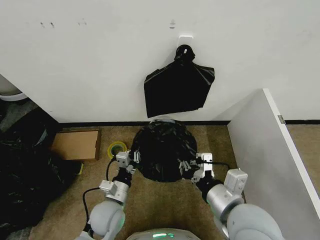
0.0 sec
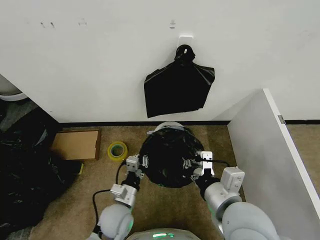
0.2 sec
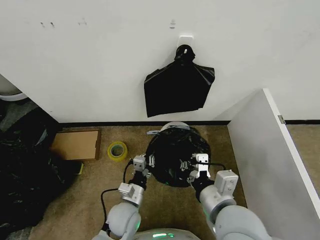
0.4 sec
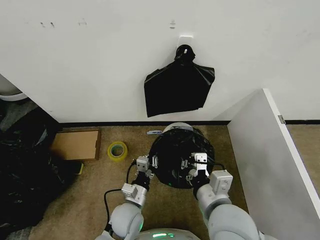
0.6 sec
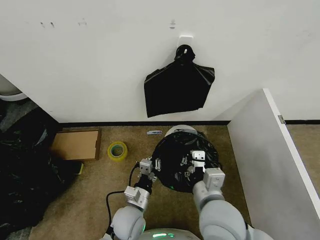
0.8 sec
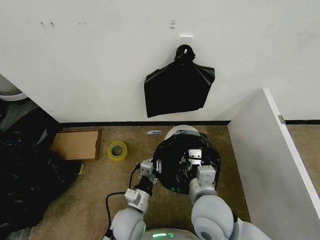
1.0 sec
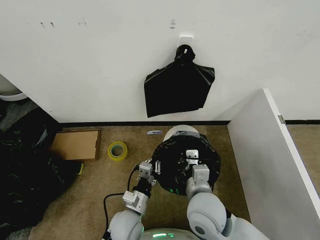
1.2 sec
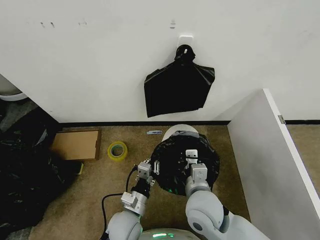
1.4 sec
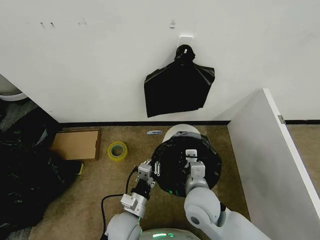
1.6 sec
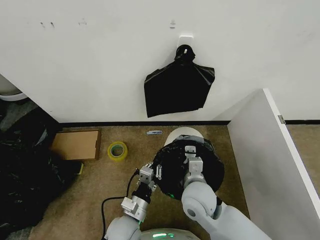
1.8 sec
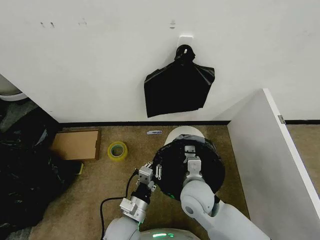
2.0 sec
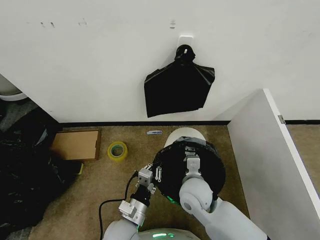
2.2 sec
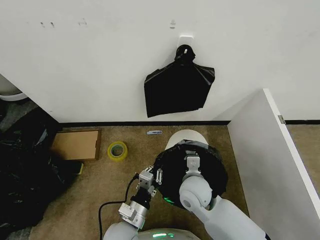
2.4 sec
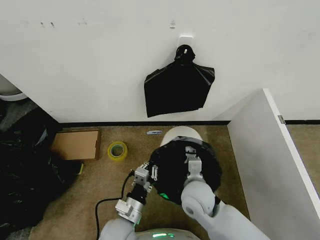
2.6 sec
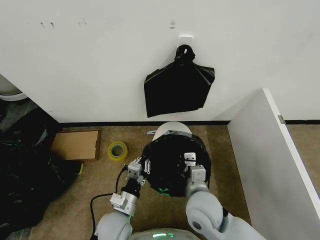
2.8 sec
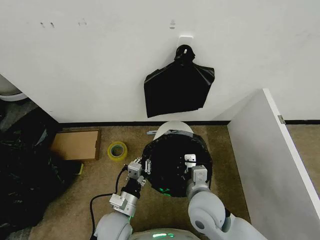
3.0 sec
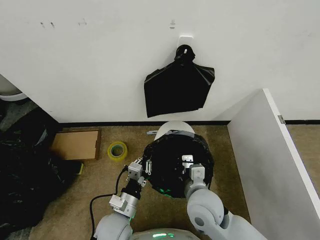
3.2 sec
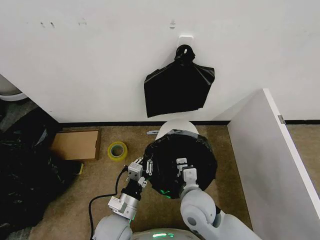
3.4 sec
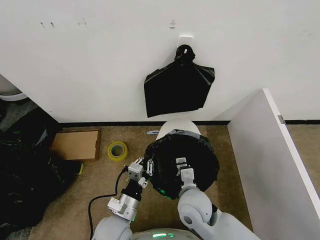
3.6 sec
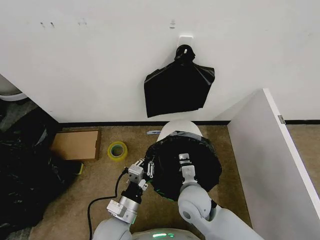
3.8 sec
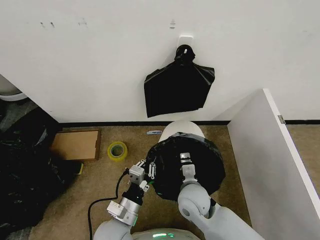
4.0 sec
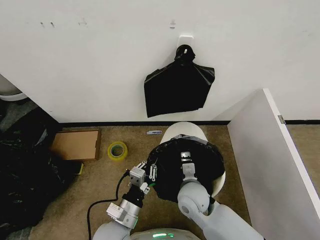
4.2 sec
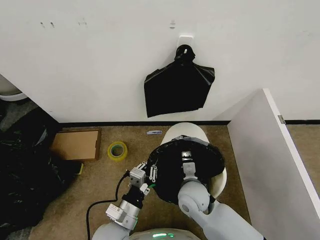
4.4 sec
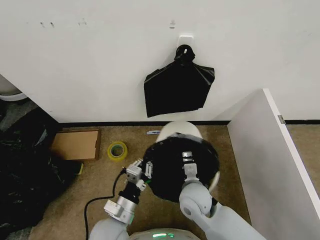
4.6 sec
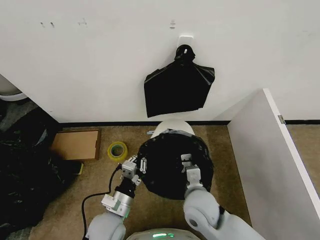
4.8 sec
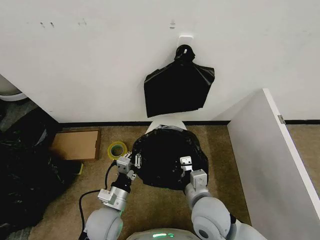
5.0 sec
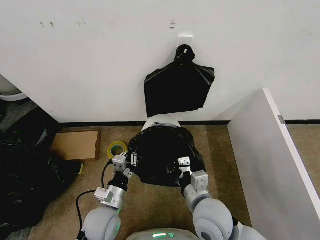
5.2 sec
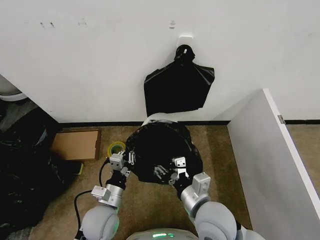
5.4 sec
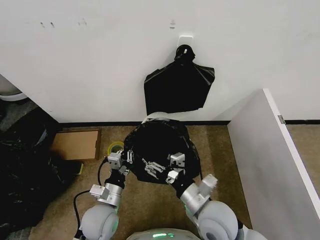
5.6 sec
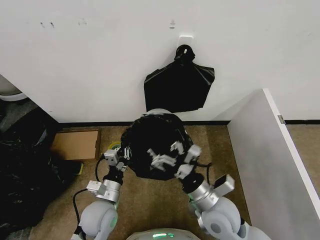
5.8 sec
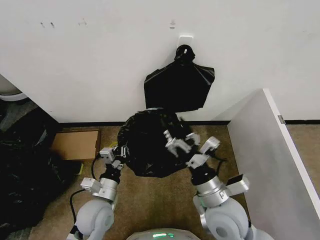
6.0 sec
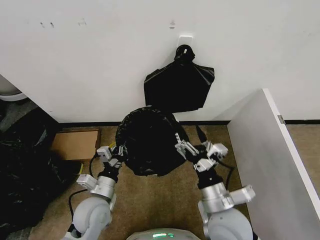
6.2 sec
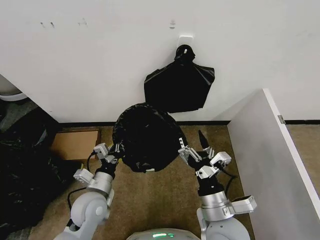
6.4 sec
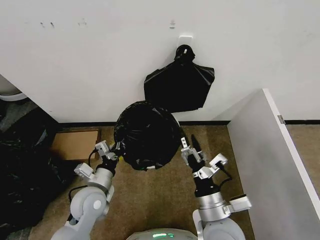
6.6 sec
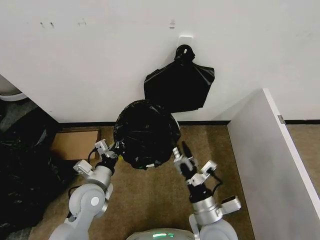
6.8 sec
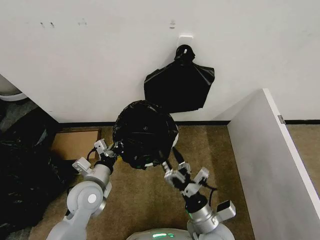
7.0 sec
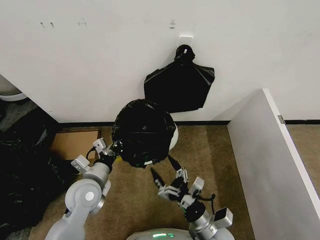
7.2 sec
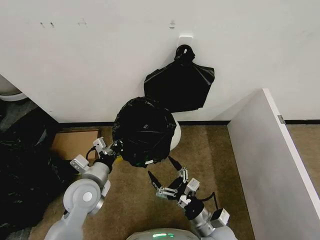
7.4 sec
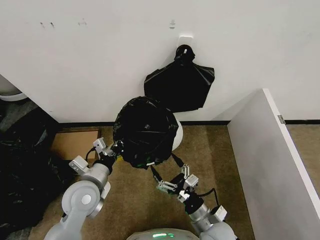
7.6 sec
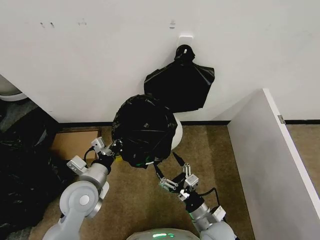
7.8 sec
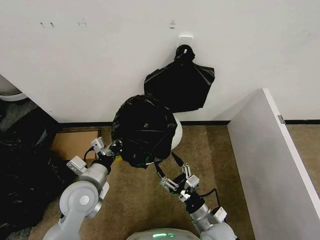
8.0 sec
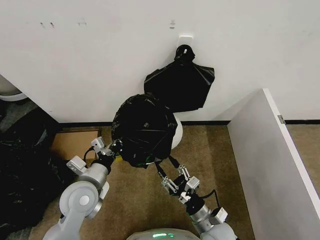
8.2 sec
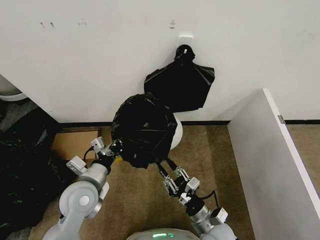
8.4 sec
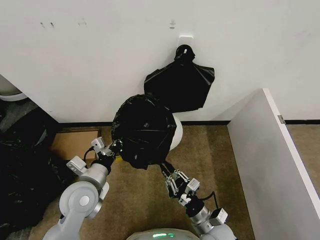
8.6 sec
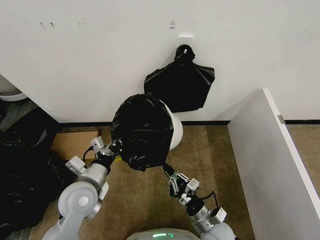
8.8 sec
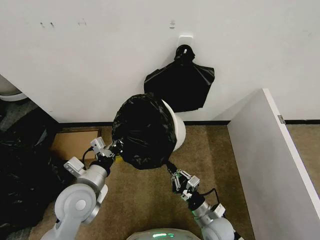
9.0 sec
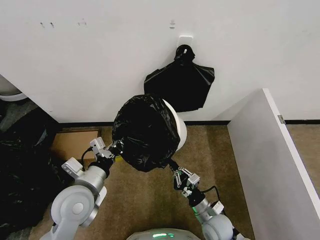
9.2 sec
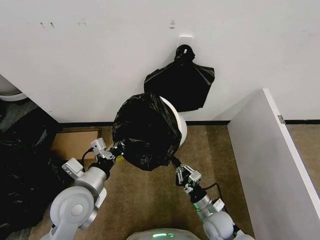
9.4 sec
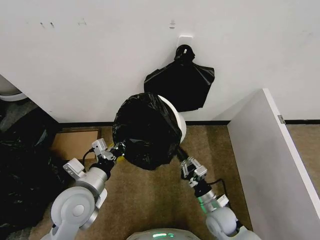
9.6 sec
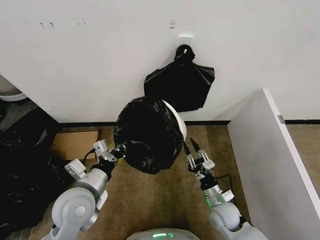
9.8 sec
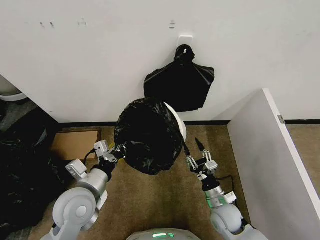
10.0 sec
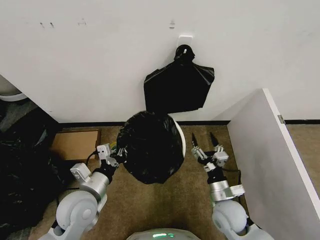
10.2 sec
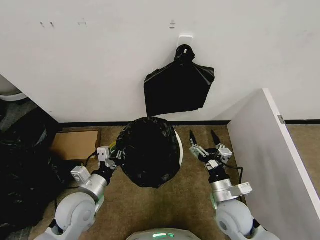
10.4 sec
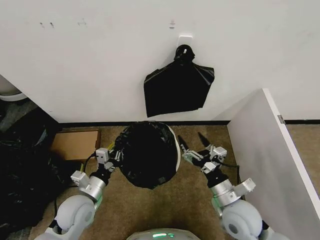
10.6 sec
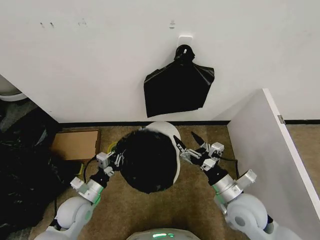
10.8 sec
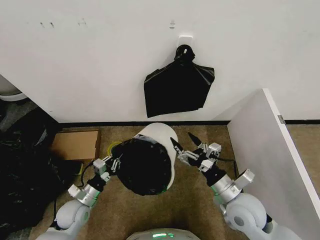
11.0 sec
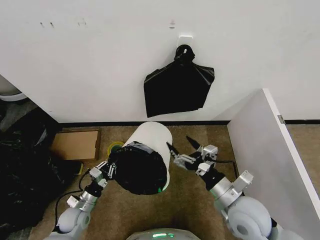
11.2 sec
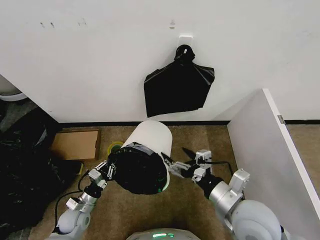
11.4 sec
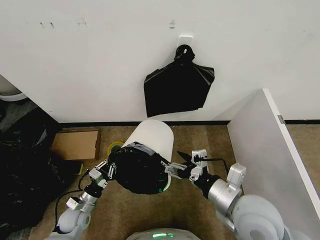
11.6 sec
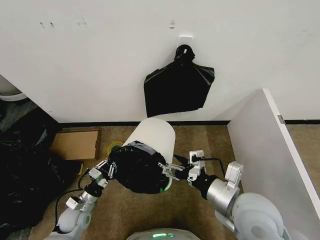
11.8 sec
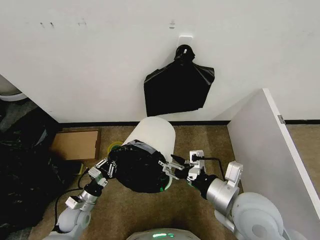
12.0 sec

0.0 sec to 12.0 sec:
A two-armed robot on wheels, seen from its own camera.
Task of the whole recording: Place the garbage bag over the trash bin.
0.0 sec to 1.6 sec: The right gripper is displaced downward, forward and to the left by about 15 cm. The left gripper travels to the right by approximately 5 cm.
1.6 sec to 3.0 sec: The grippers make only small movements.
3.0 sec to 4.4 sec: The right gripper shifts some 5 cm forward.
4.4 sec to 6.0 sec: The left gripper goes approximately 10 cm forward and to the left. Meanwhile the right gripper shifts approximately 10 cm backward, upward and to the right, and opens its fingers.
6.0 sec to 7.6 sec: The right gripper is displaced downward by approximately 15 cm. Meanwhile the left gripper moves upward, roughly 5 cm.
7.6 sec to 9.0 sec: The right gripper is displaced downward by approximately 5 cm, and closes its fingers.
9.0 sec to 10.4 sec: The right gripper is displaced upward by approximately 10 cm, and opens.
10.4 sec to 12.0 sec: The right gripper shifts roughly 15 cm upward. Meanwhile the left gripper heads downward and to the left, covering approximately 15 cm.

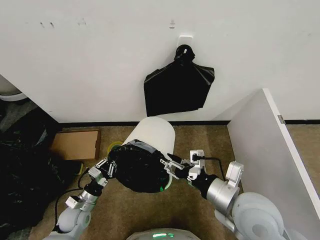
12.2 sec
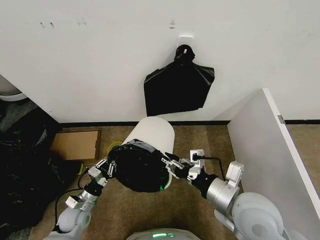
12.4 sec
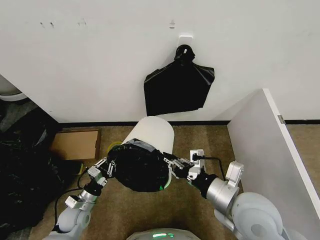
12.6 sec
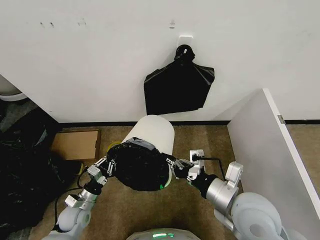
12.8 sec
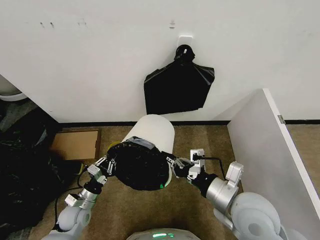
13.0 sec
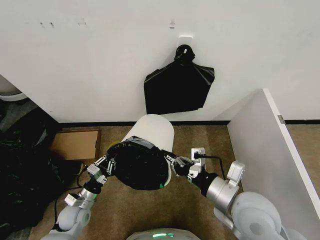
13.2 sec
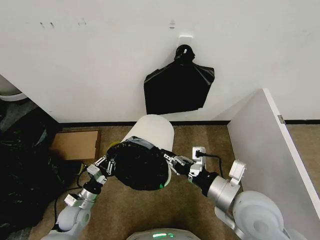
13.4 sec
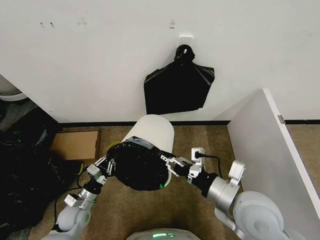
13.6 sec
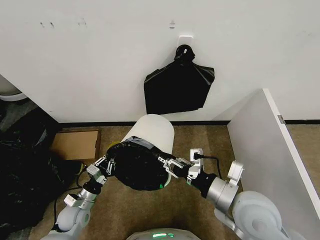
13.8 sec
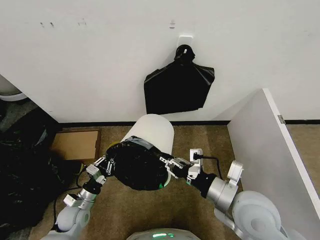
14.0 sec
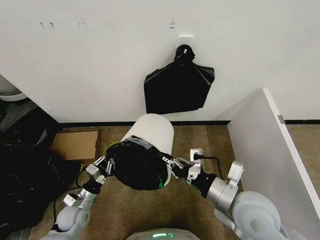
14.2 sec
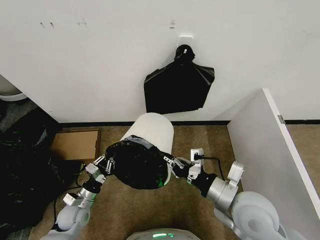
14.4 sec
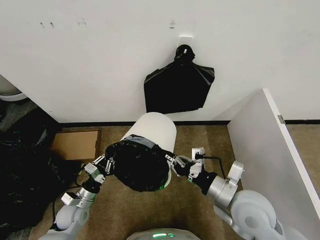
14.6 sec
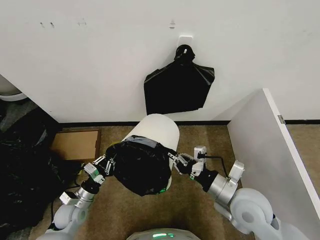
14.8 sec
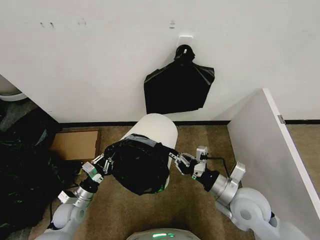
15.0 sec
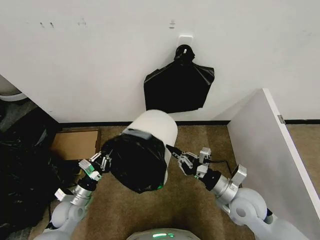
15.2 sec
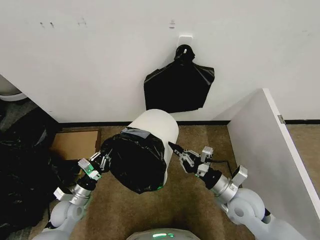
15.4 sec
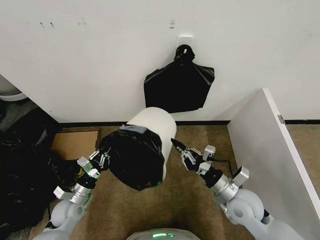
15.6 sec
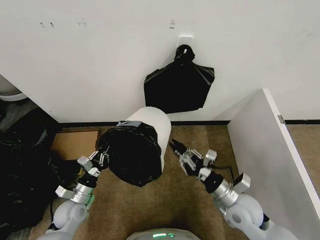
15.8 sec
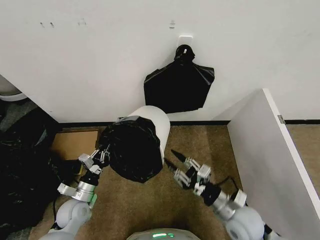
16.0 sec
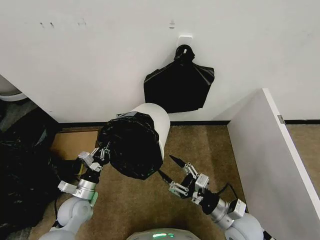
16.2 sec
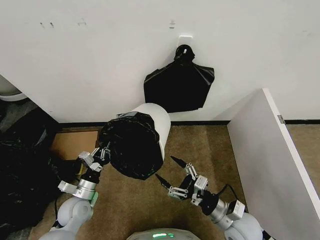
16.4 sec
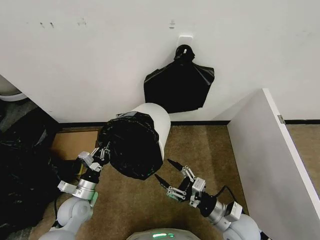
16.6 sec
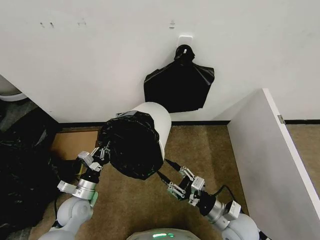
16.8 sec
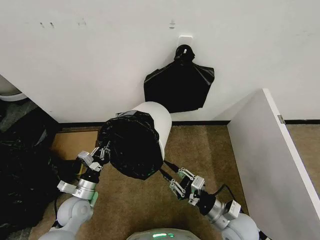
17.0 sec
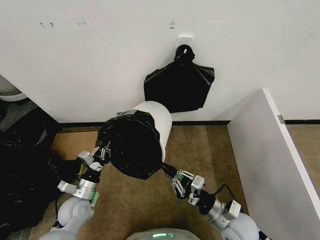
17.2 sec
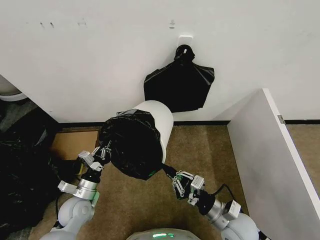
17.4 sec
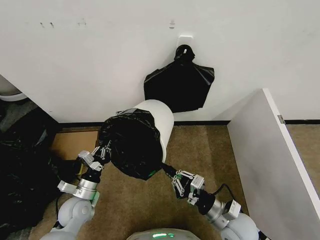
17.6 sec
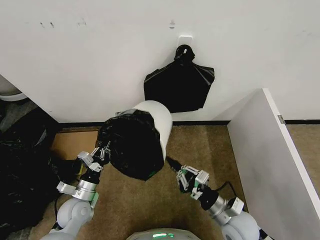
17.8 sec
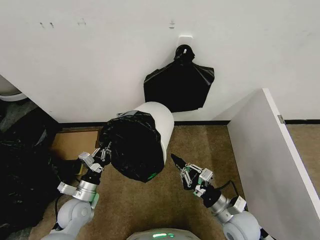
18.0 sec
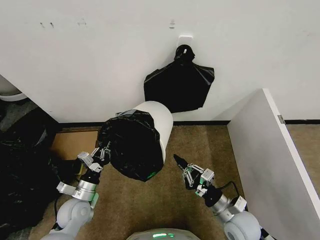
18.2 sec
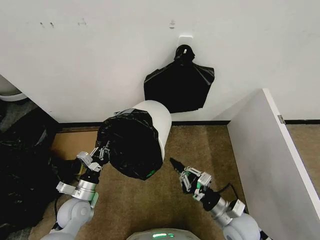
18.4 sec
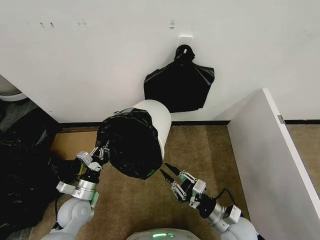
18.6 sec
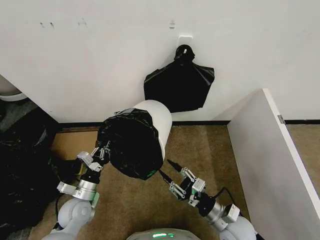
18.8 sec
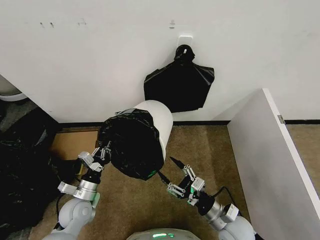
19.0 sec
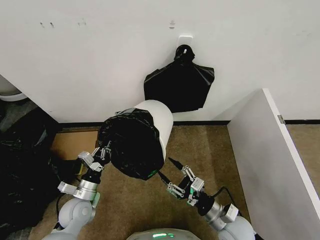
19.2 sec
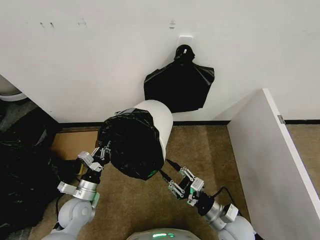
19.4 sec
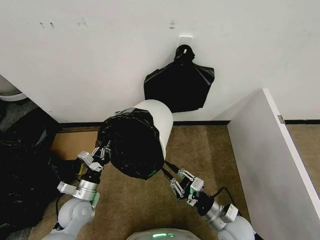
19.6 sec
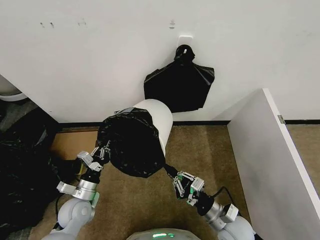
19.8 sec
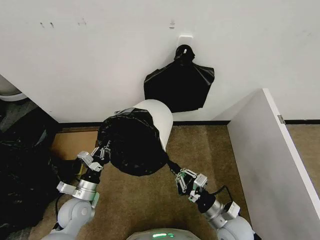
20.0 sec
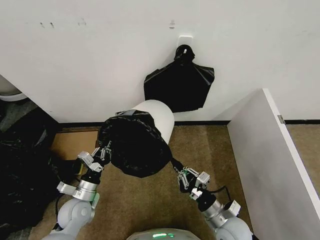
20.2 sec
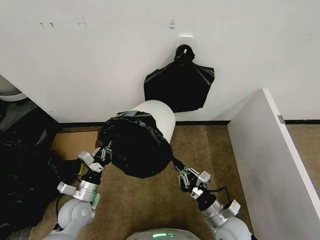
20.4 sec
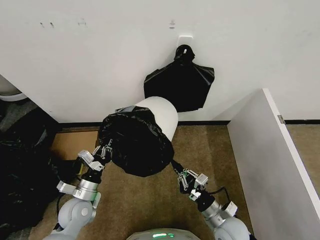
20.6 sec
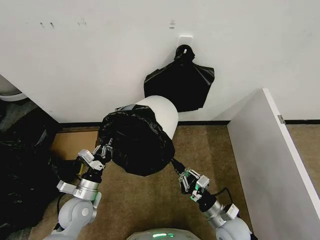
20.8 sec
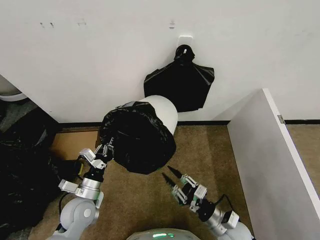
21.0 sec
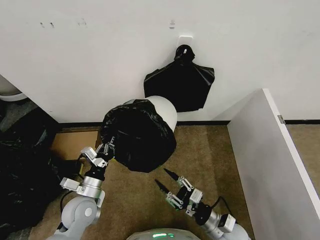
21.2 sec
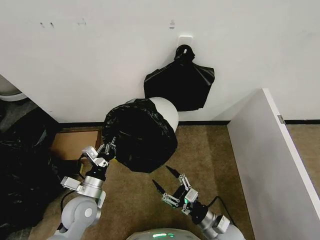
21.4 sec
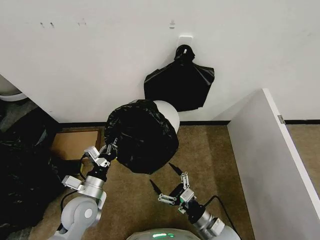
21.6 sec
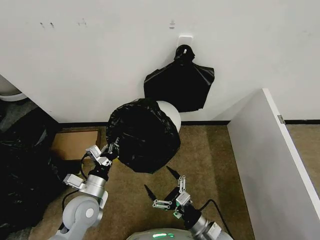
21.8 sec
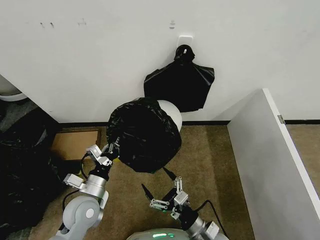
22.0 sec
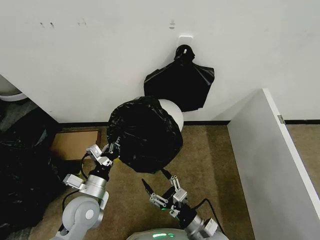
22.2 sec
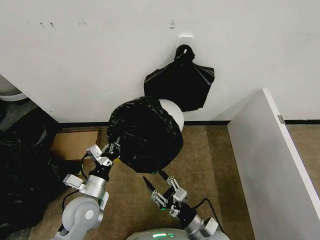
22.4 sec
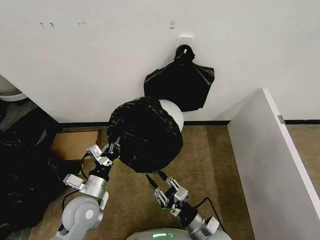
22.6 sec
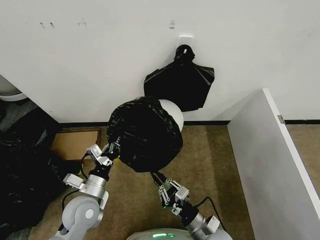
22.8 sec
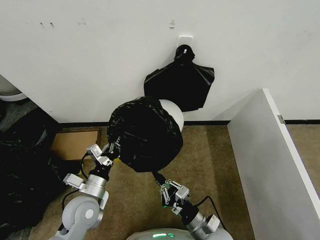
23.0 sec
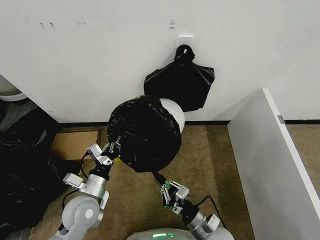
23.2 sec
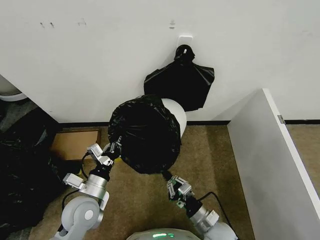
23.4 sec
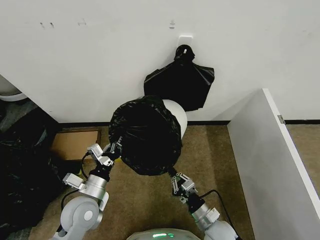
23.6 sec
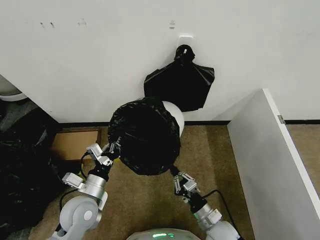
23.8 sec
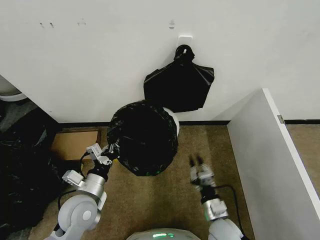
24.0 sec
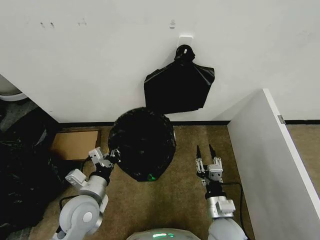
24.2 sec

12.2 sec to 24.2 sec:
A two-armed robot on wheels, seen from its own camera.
Task of the whole recording: Place the garbage bag over the trash bin.
12.2 sec to 13.8 sec: The right gripper closes, then opens again.
13.8 sec to 15.2 sec: The right gripper heads downward, covering roughly 10 cm, and closes its fingers.
15.2 sec to 16.6 sec: The right gripper heads downward and backward, covering about 10 cm, and opens up.
16.6 sec to 18.2 sec: The right gripper closes.
18.2 sec to 19.8 sec: The right gripper opens, then closes once more.
19.8 sec to 21.2 sec: The right gripper opens up.
21.2 sec to 22.6 sec: The right gripper travels to the left by about 5 cm, and opens, then closes again.
